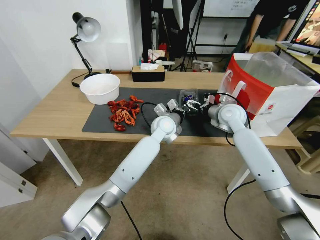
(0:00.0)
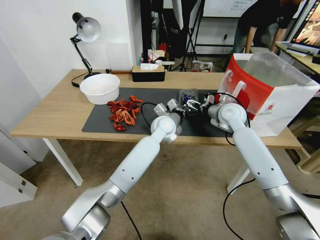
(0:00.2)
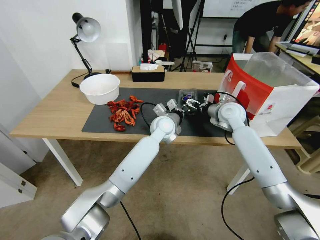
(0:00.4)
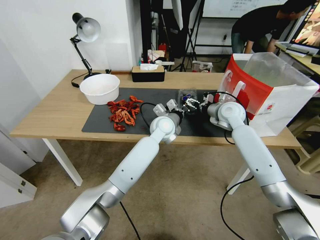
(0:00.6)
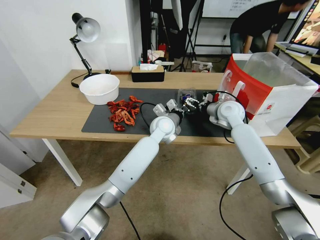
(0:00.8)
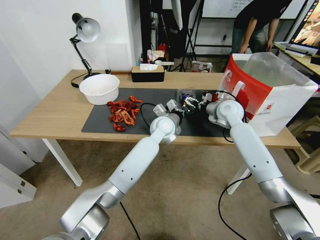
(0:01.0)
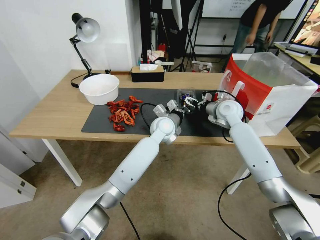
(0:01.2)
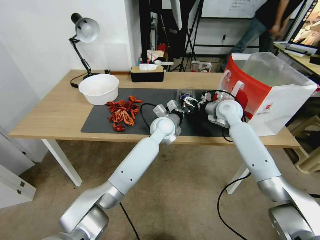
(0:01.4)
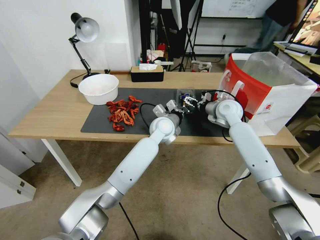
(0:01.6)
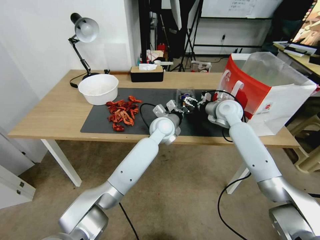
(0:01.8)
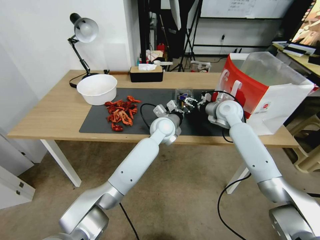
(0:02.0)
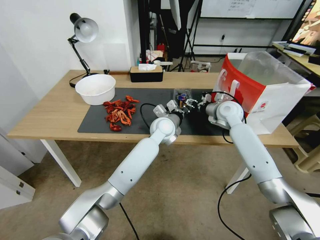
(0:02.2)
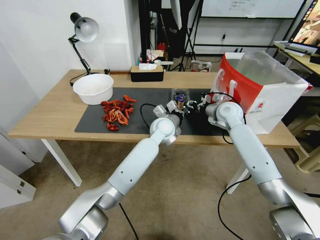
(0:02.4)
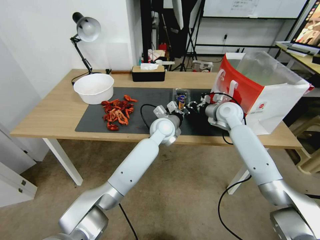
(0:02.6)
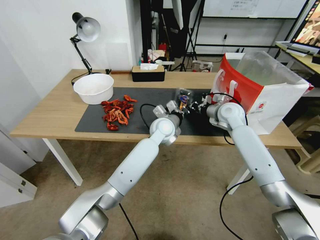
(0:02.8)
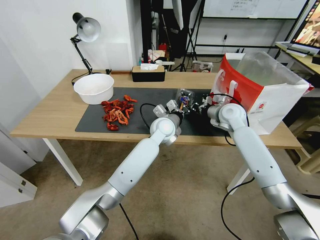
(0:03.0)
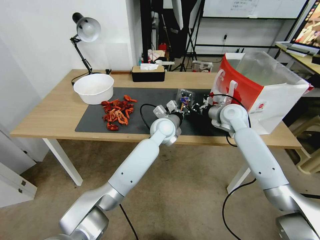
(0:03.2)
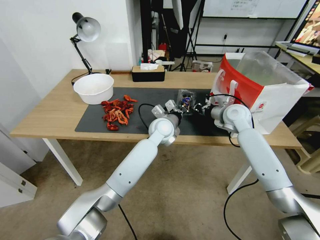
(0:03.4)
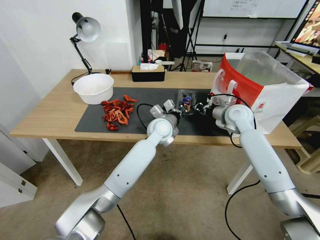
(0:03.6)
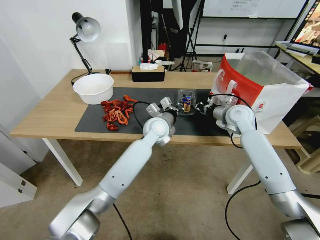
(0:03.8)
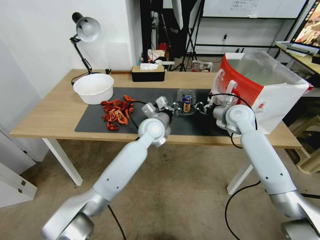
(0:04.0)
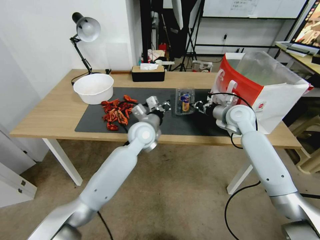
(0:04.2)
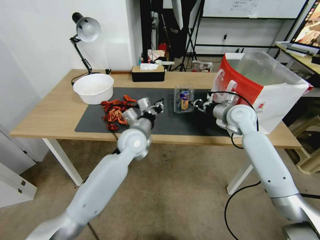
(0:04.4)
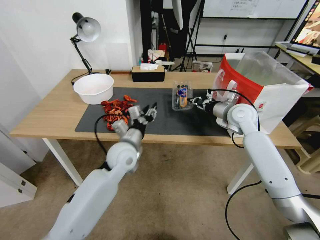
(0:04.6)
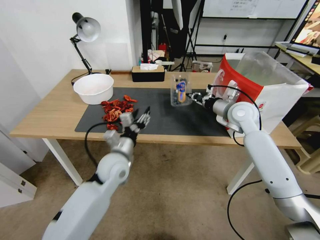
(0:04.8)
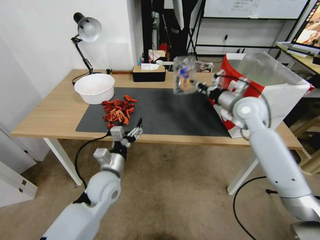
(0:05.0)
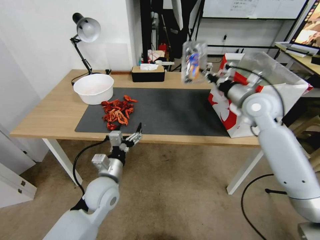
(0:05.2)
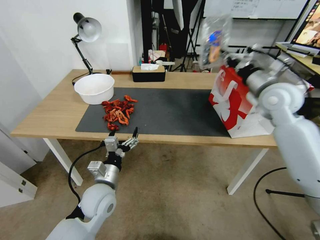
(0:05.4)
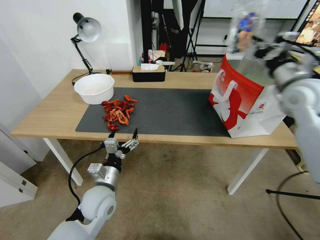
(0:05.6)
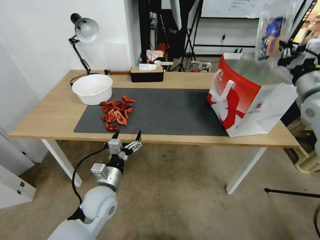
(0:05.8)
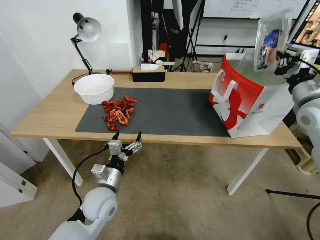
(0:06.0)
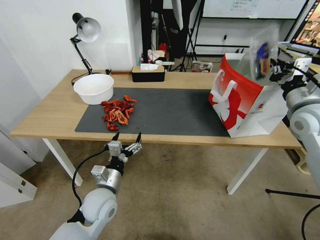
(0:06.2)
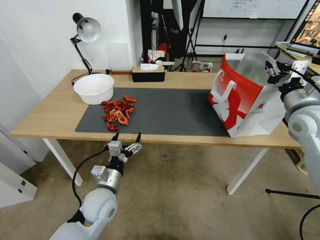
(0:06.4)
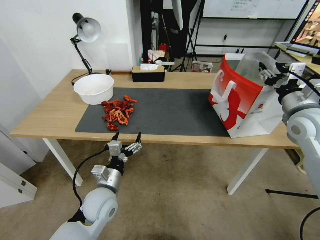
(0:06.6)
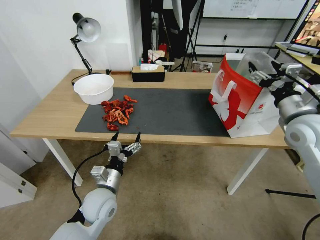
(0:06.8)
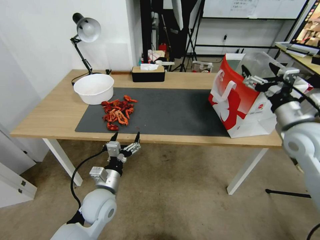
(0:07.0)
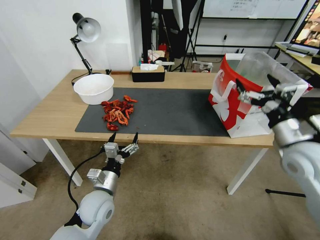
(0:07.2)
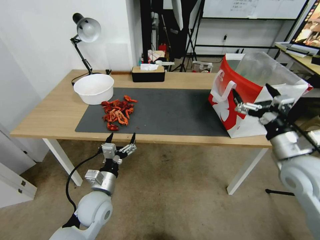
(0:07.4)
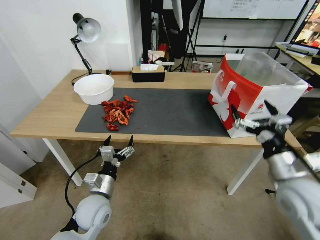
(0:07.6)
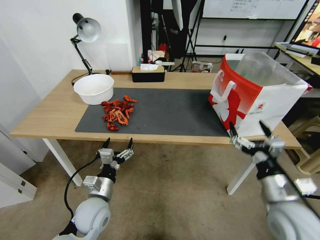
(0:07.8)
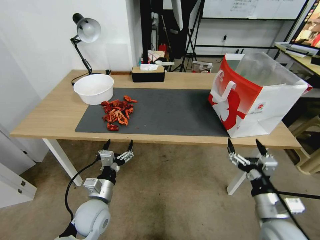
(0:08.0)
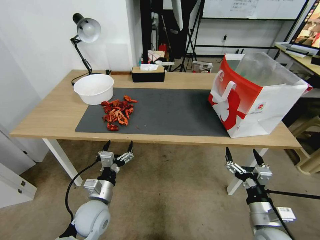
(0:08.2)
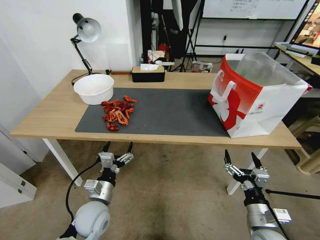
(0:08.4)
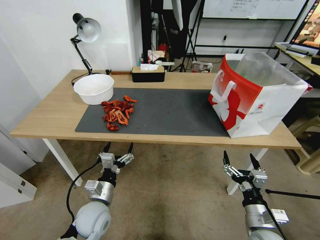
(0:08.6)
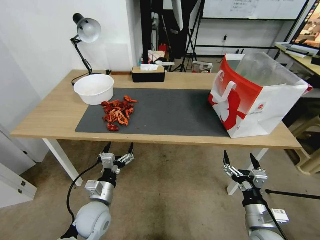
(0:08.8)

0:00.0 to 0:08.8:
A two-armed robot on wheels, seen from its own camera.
Task of the whole recording: Close the takeout container lid, then place the container into the takeout bag.
0:00.0 to 0:01.4: The grippers stay close to where they were, moving slightly.
0:01.4 to 0:03.0: The right gripper closes its fingers.
0:03.0 to 0:04.4: The left gripper shifts some 10 cm to the left and backward.
0:04.4 to 0:05.8: The left gripper goes some 20 cm backward, downward and to the left, and opens, while the right gripper is displaced upward, to the right and backward by about 20 cm.
0:05.8 to 0:07.4: The right gripper moves backward, downward and to the left, roughly 20 cm, and opens up.
0:07.4 to 0:08.8: The right gripper goes roughly 25 cm downward and backward.
